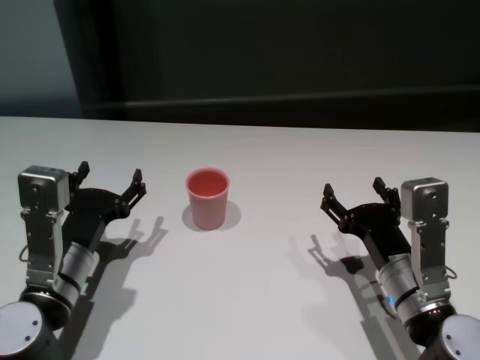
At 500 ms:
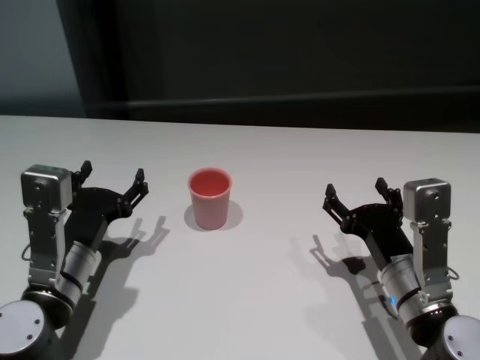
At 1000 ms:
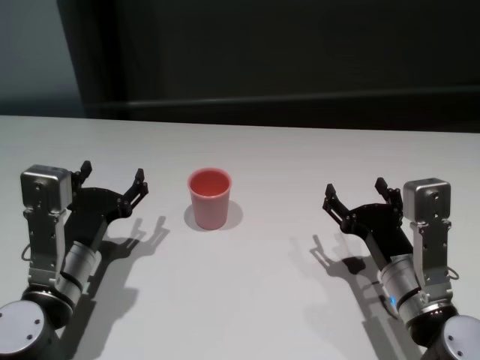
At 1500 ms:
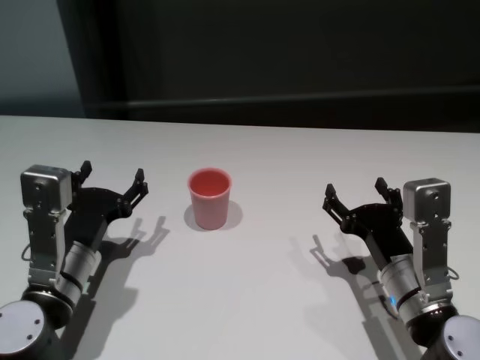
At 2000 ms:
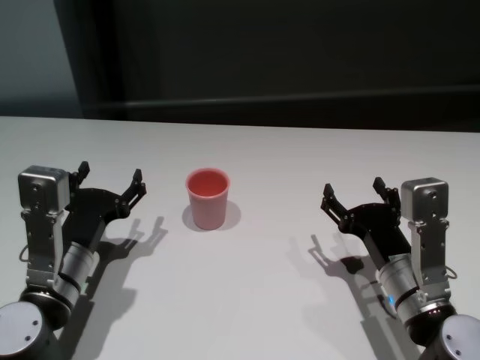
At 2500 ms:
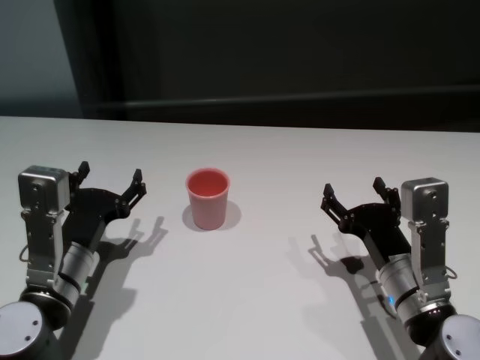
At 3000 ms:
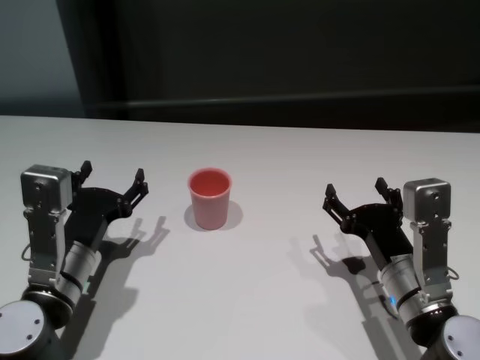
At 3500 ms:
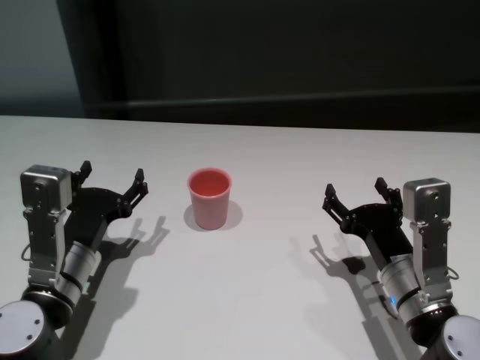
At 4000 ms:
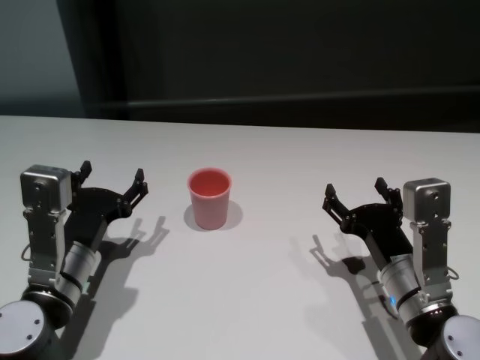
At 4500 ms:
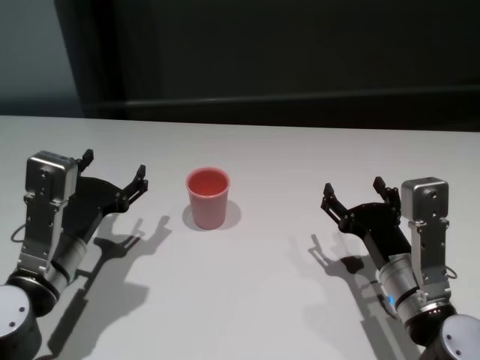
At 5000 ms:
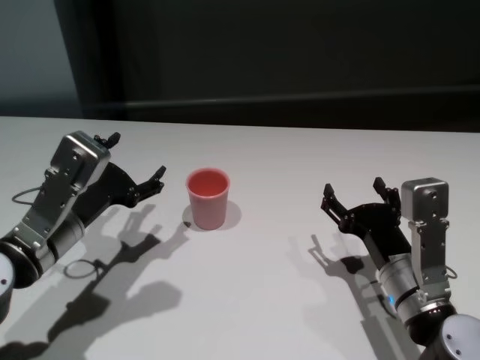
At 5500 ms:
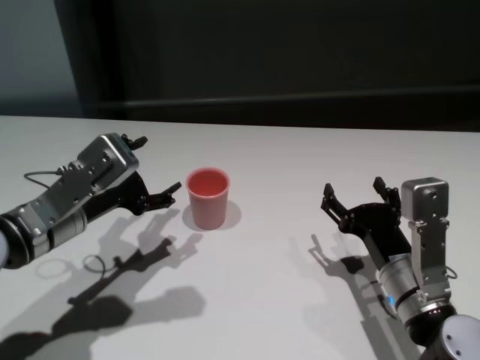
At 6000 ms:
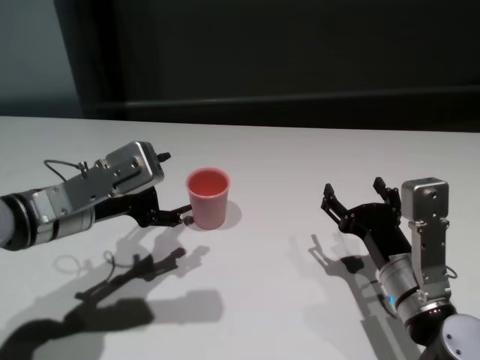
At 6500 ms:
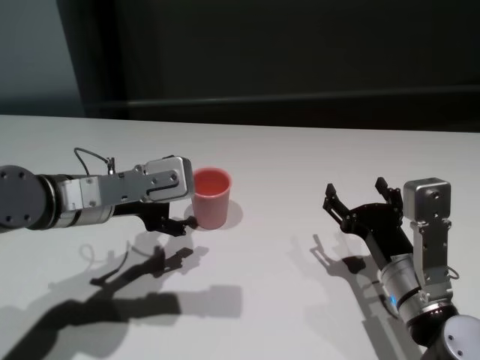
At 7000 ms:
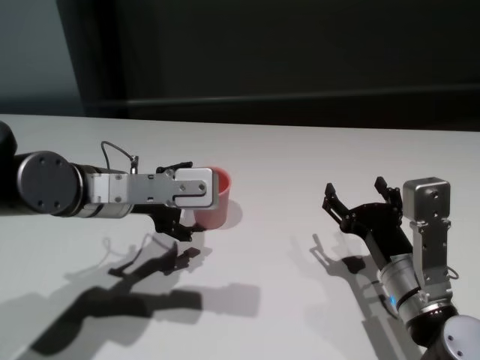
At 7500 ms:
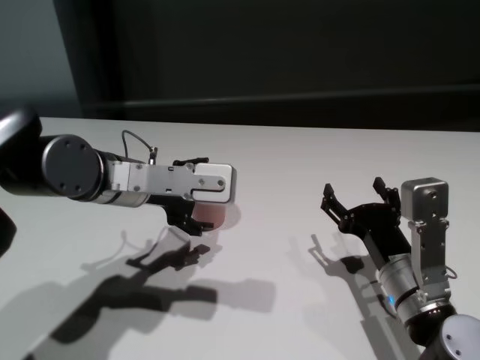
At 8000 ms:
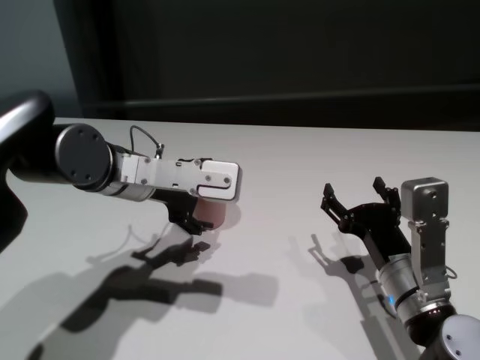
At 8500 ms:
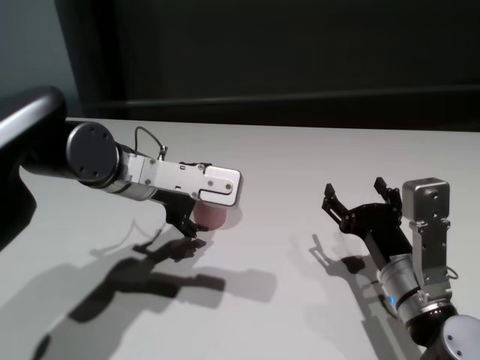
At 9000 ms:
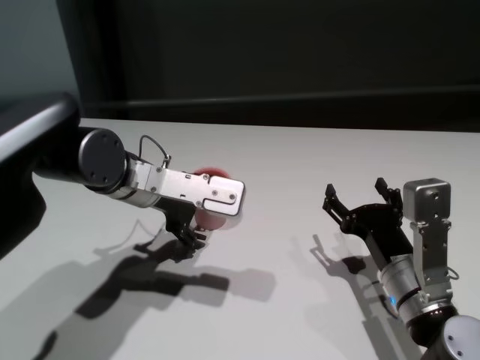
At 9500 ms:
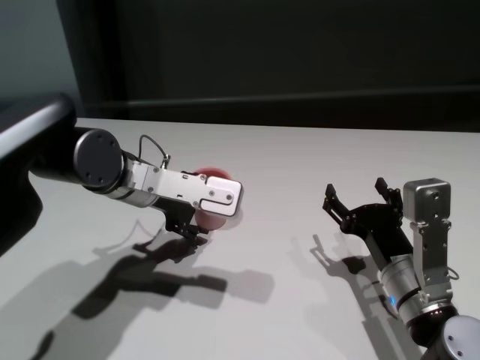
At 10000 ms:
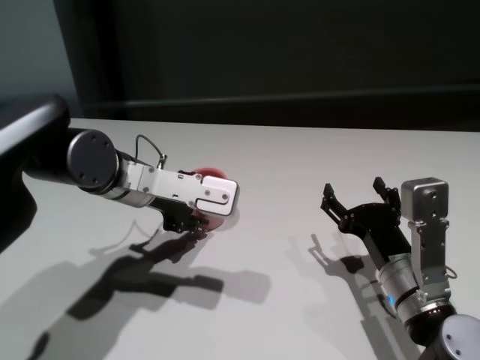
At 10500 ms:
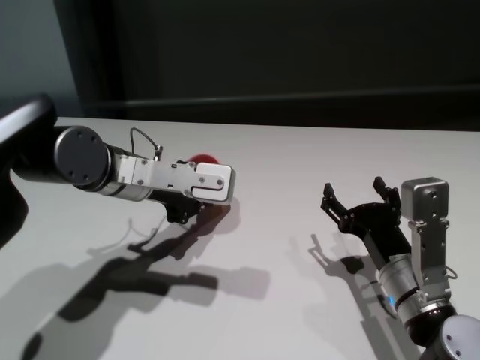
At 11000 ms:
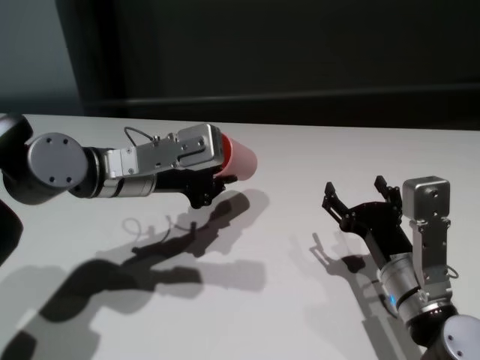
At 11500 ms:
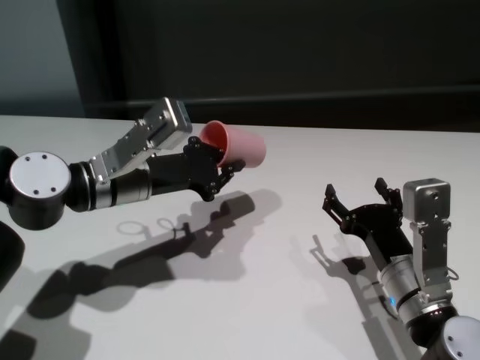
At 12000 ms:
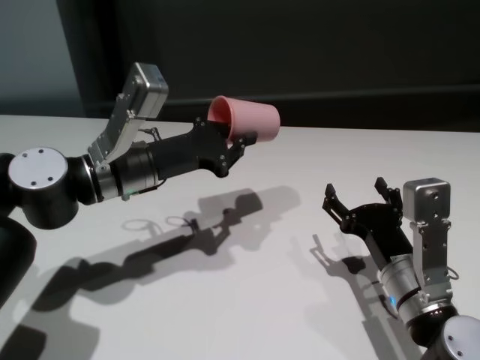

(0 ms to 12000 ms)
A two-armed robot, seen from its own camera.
Task of the whole recording: On the white table pick up the cup with one hand and transfer it to the other hand before turning it over.
Step, 0 ms - 10000 ms: Grasp the cup with left gripper.

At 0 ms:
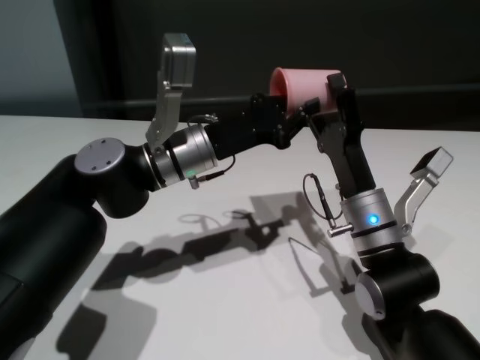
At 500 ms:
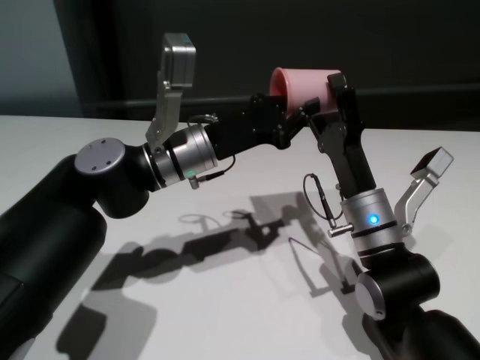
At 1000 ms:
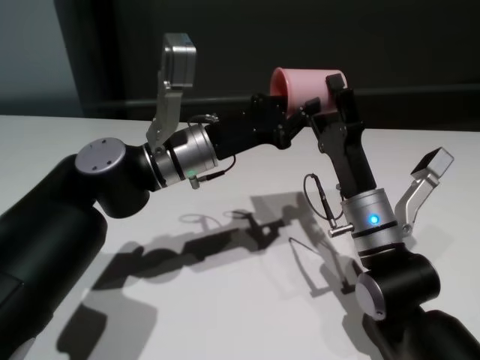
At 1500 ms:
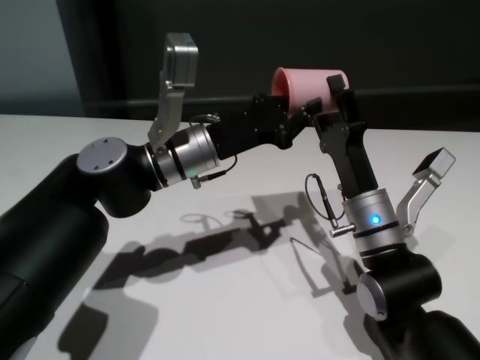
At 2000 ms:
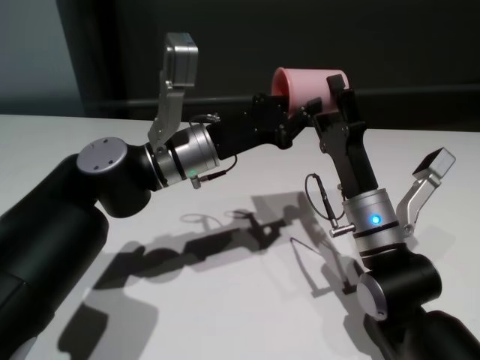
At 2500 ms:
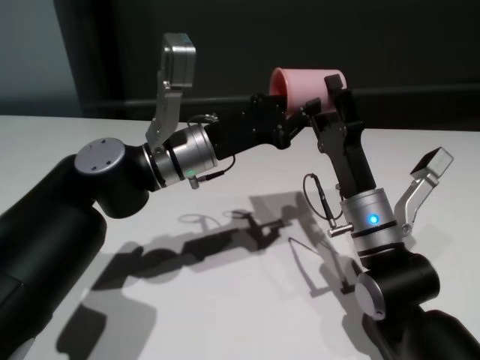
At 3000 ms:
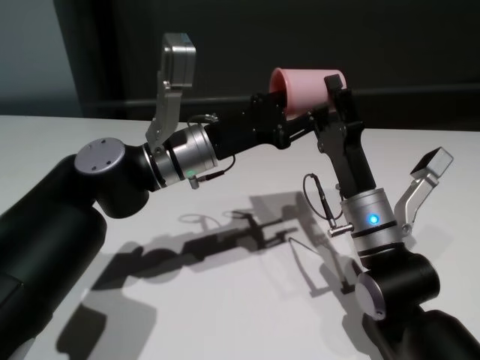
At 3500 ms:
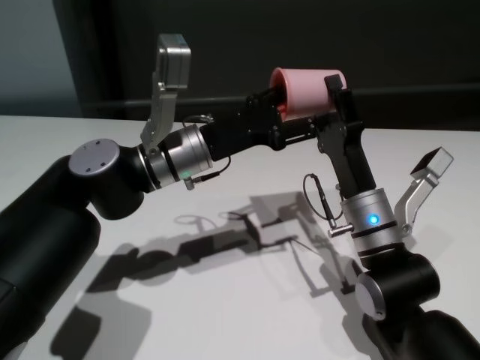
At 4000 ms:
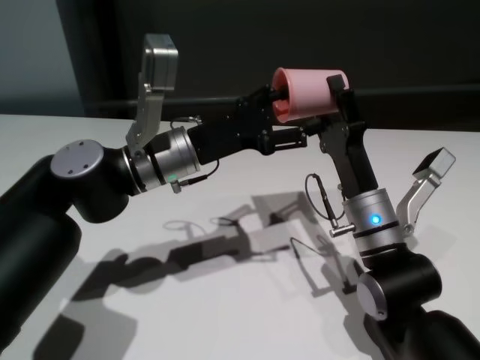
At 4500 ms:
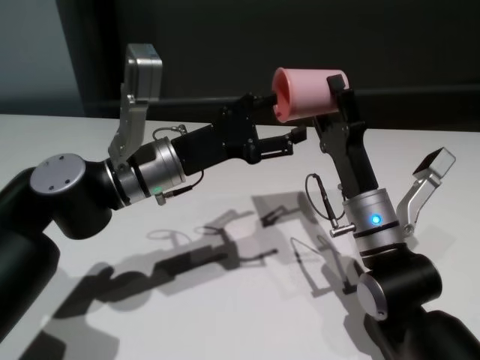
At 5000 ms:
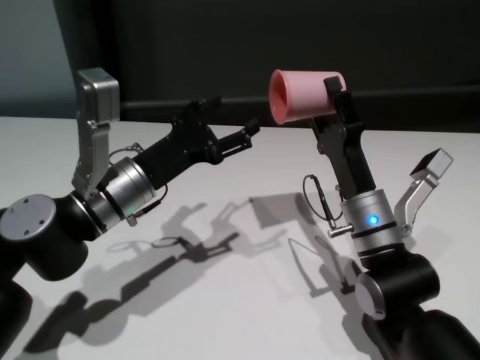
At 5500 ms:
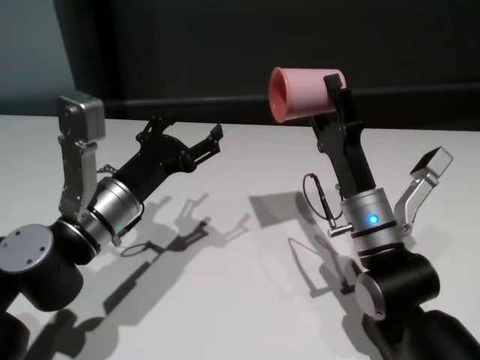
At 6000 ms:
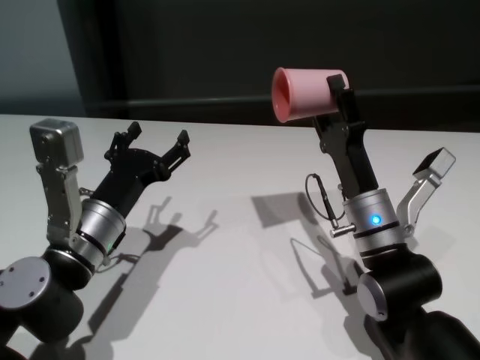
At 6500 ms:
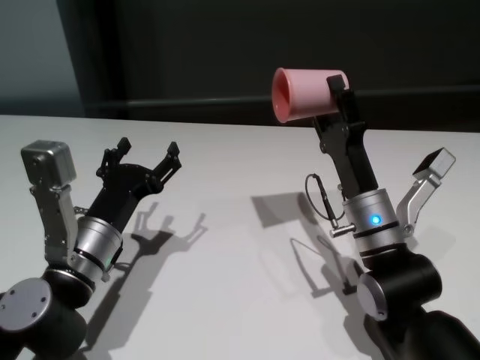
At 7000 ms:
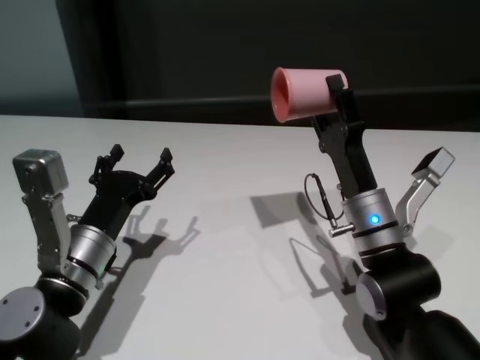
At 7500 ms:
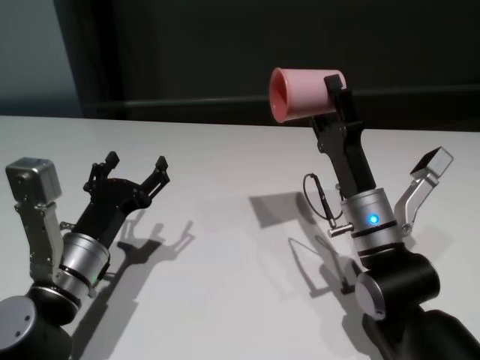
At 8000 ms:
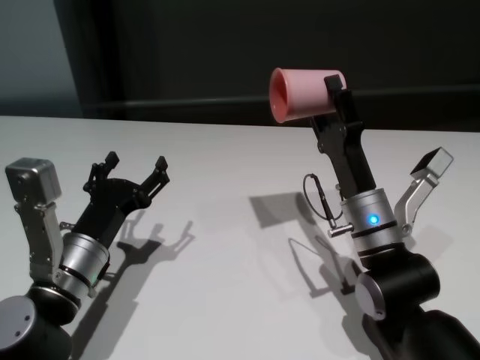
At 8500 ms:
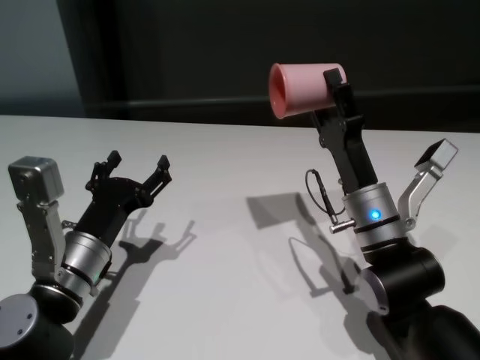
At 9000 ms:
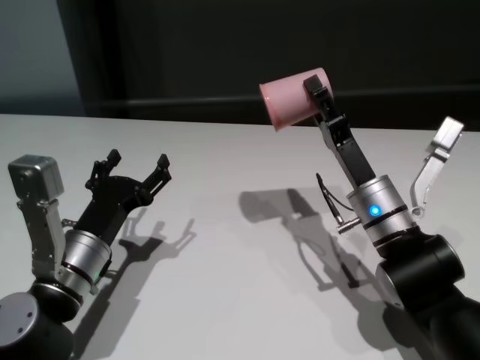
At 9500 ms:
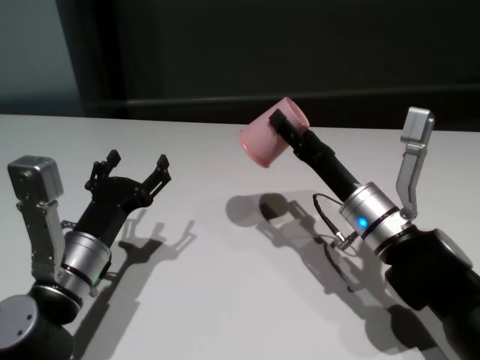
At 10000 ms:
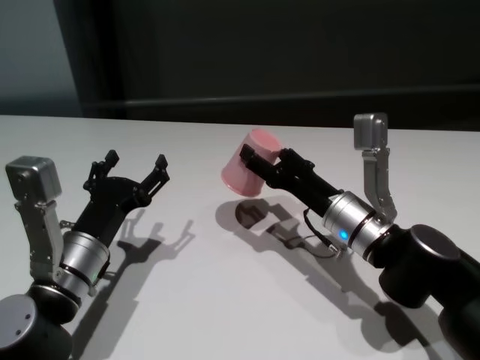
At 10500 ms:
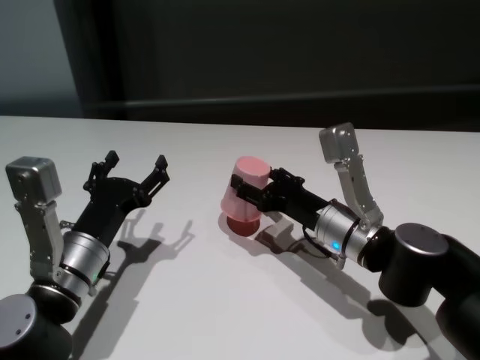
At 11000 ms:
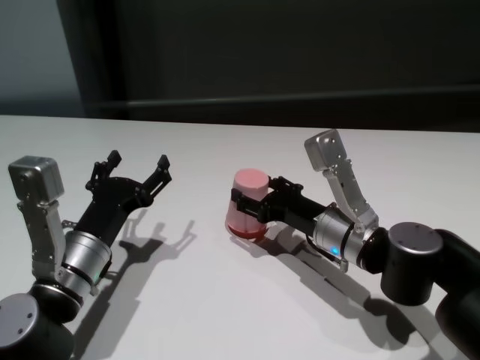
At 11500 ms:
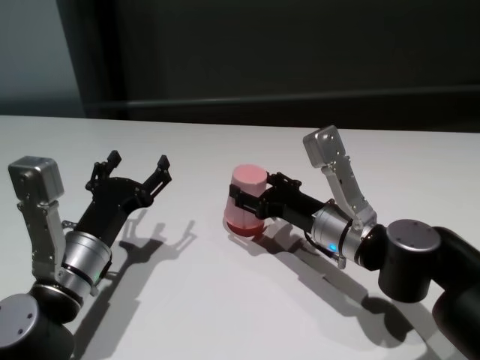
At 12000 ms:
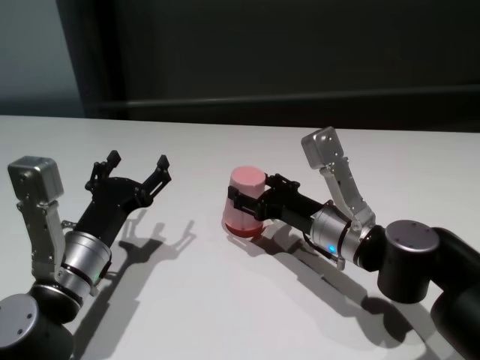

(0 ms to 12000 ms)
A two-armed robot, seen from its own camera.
Task of the whole recording: On the white table pick up the cup with one hand and transfer it to the other hand before turning it over.
Step, 0 ms - 4500 ms: Pass the cup to the right gripper.
